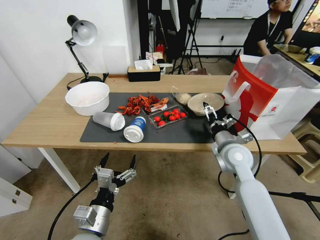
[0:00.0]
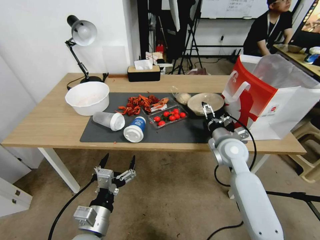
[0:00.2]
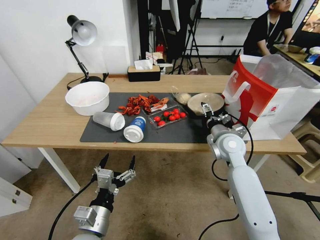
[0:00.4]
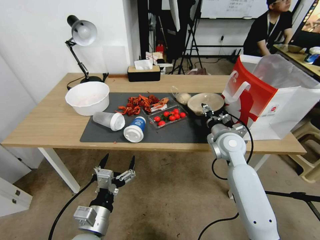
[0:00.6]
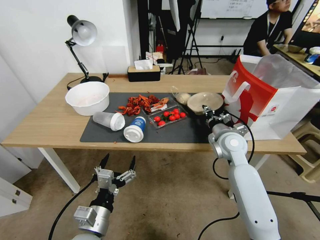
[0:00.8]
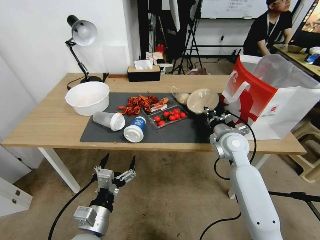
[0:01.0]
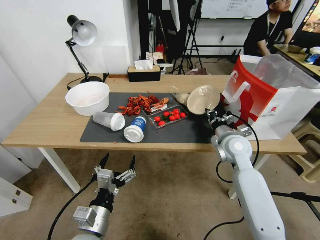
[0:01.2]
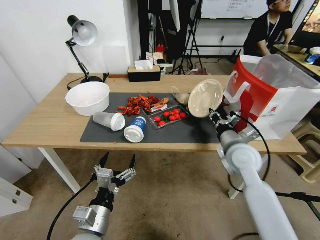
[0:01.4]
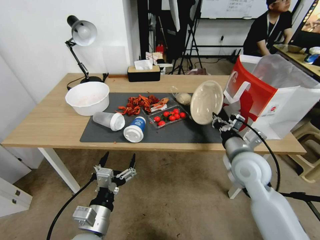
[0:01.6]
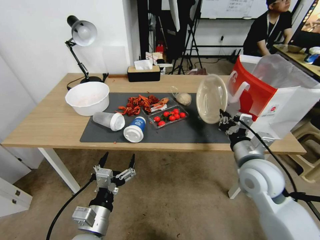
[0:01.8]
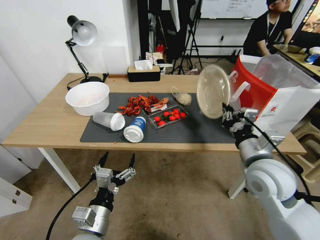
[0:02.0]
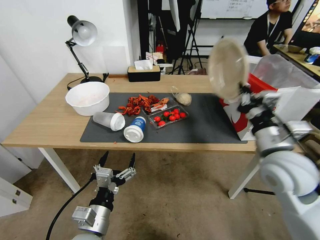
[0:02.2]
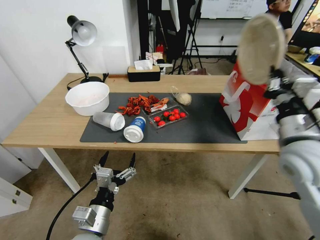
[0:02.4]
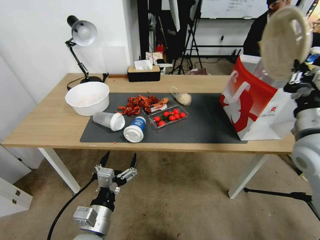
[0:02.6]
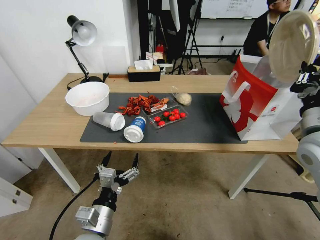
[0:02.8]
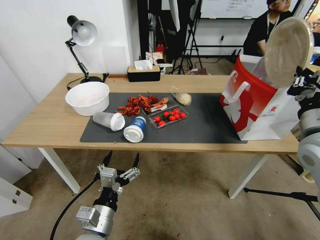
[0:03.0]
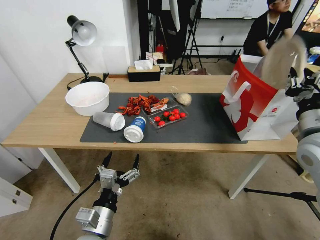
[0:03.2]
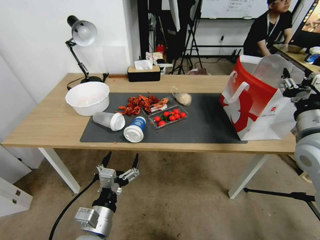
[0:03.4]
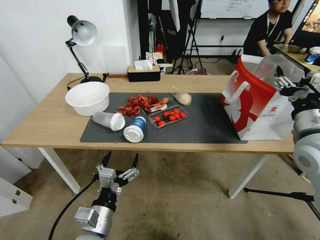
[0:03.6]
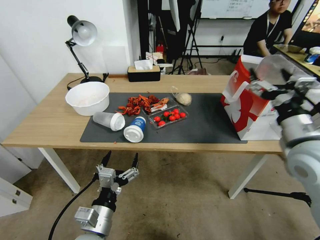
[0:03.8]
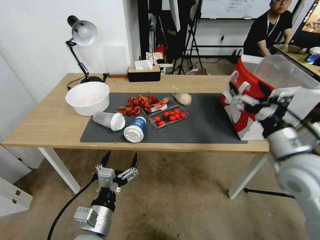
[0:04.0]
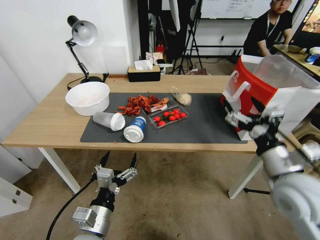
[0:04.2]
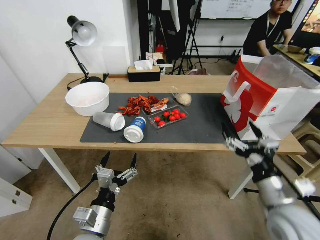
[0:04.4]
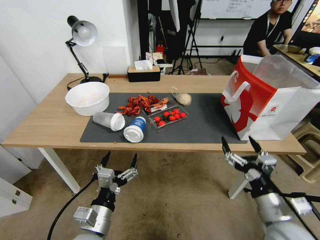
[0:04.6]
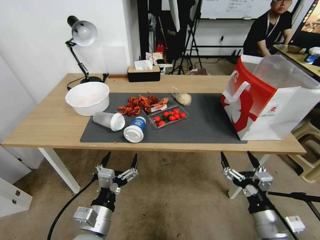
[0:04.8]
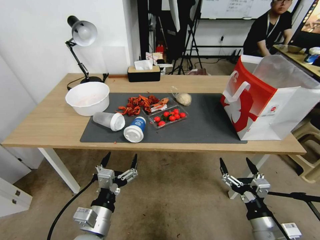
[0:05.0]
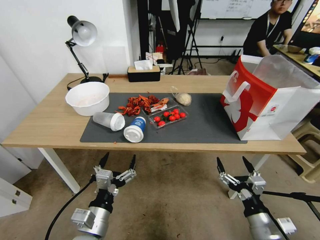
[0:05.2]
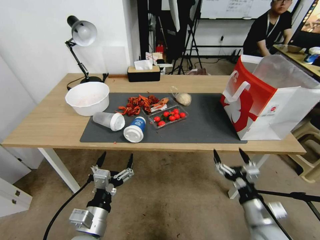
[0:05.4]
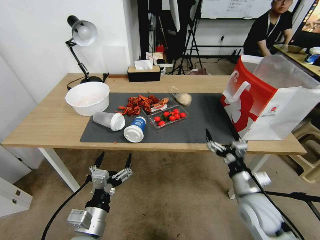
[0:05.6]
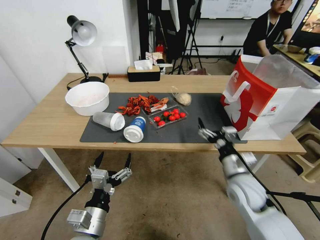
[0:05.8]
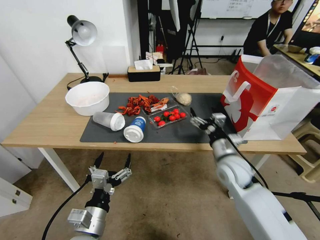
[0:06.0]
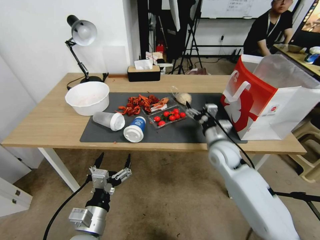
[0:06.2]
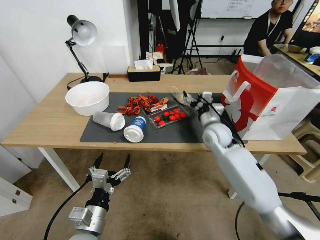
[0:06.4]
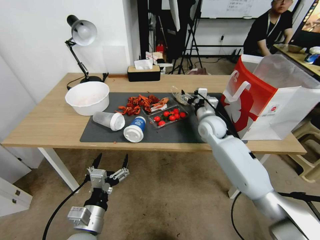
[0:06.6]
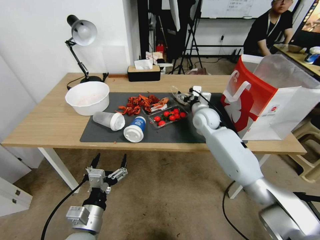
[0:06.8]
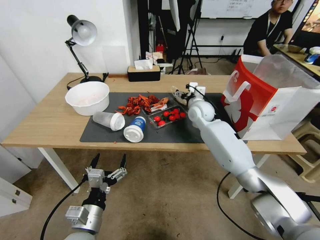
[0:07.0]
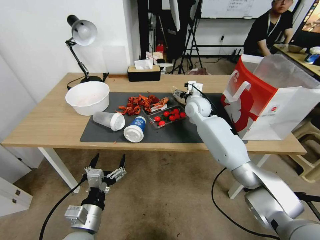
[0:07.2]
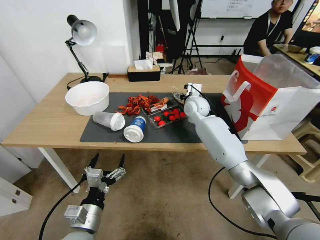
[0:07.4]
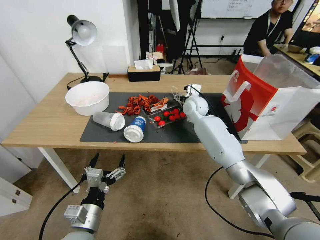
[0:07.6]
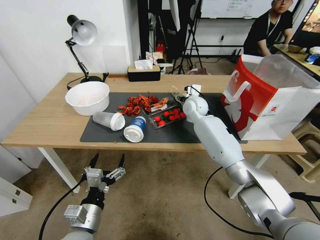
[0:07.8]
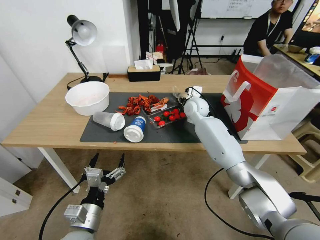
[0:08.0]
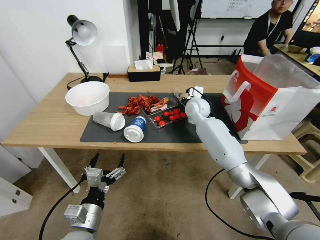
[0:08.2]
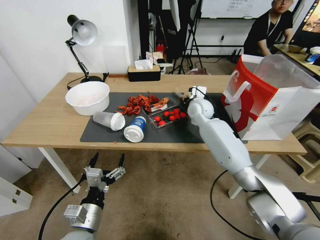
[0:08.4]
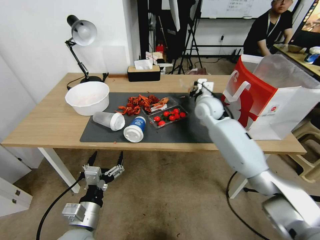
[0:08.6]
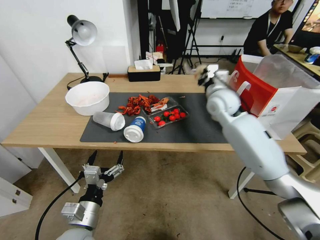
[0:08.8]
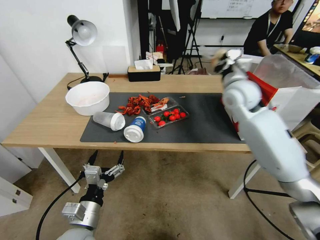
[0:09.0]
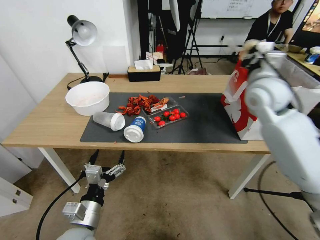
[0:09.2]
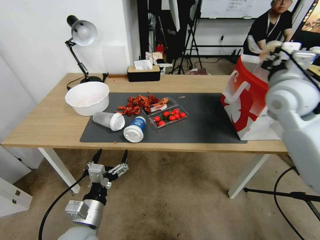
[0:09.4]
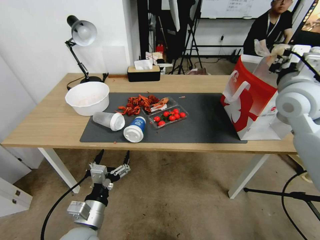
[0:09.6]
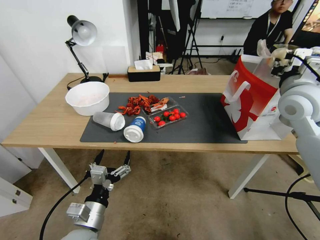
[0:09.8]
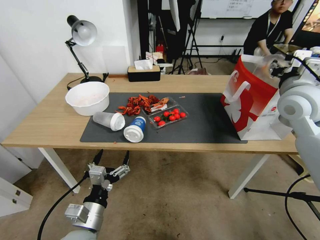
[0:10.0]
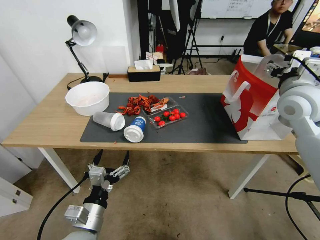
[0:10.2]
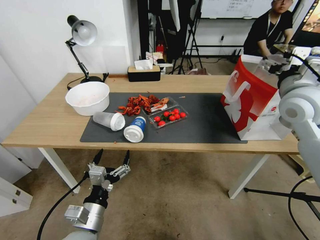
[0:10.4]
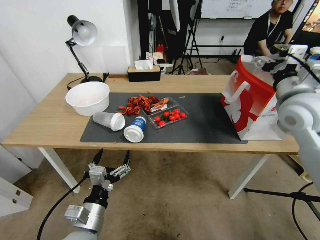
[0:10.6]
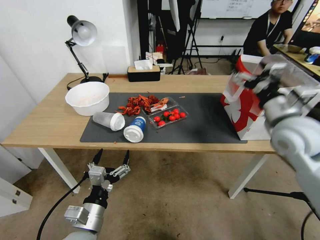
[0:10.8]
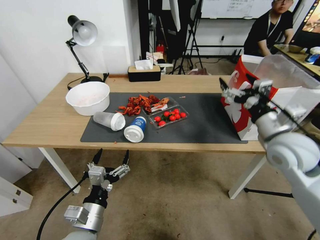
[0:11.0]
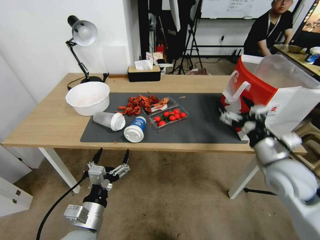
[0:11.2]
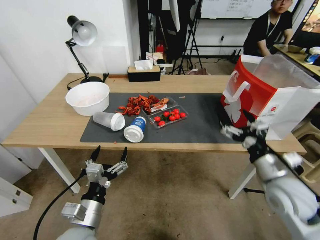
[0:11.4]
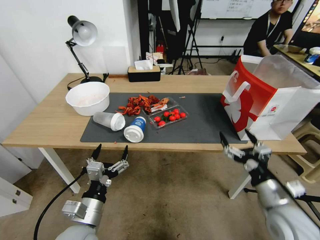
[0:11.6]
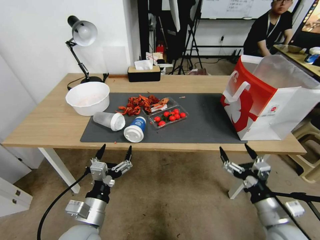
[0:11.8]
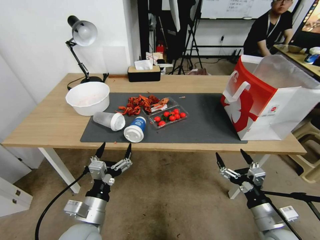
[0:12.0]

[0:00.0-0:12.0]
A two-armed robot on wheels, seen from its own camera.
0:00.0 to 0:01.6: The right gripper is displaced backward by about 5 cm, and closes.
0:01.6 to 0:03.0: The right gripper goes roughly 15 cm upward and to the right.
0:03.0 to 0:04.4: The right gripper heads downward, backward and to the left, covering some 20 cm, and opens.
0:04.4 to 0:06.0: The right gripper moves forward and downward, some 10 cm.
0:06.0 to 0:07.6: The right gripper shifts approximately 30 cm forward.
0:07.6 to 0:09.0: The right gripper moves upward, backward and to the right, roughly 20 cm, and closes.
0:09.0 to 0:10.4: The right gripper goes approximately 15 cm to the right and backward, and opens.
0:10.4 to 0:12.0: The right gripper is displaced downward and backward by about 35 cm.

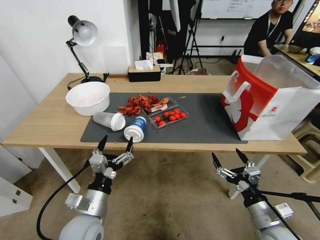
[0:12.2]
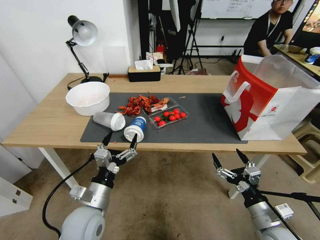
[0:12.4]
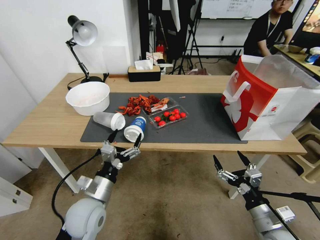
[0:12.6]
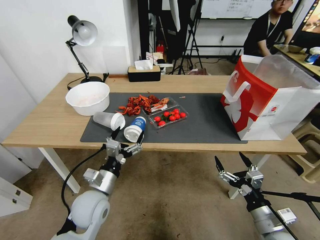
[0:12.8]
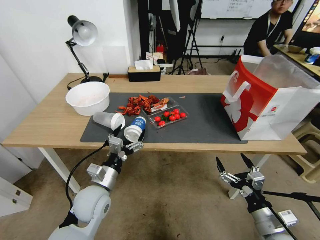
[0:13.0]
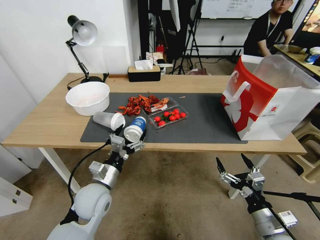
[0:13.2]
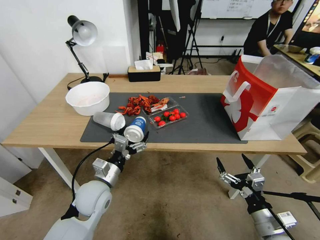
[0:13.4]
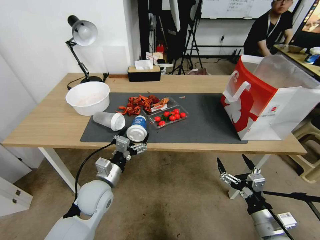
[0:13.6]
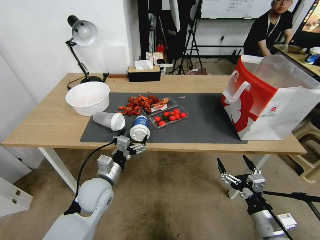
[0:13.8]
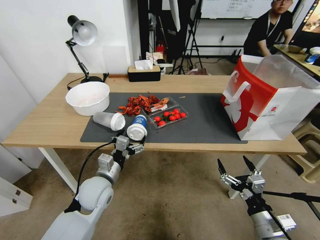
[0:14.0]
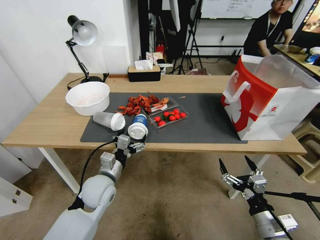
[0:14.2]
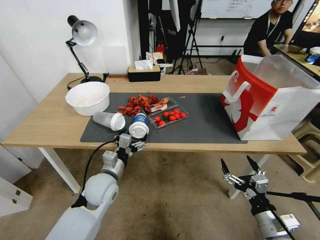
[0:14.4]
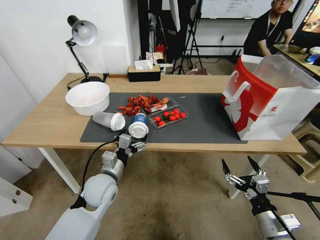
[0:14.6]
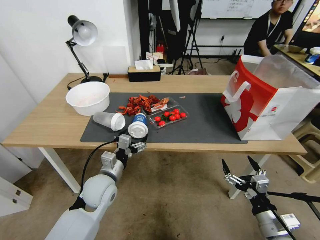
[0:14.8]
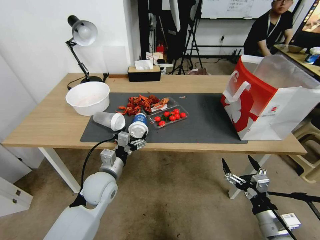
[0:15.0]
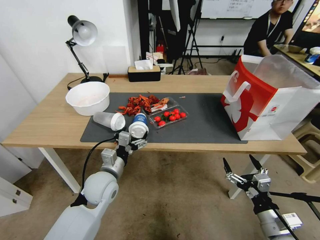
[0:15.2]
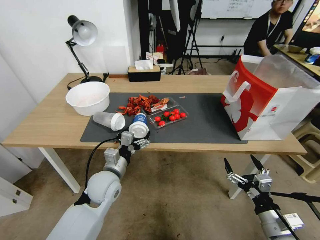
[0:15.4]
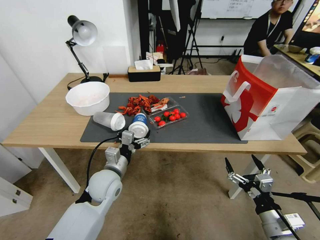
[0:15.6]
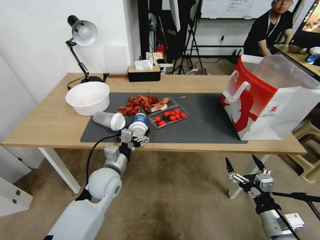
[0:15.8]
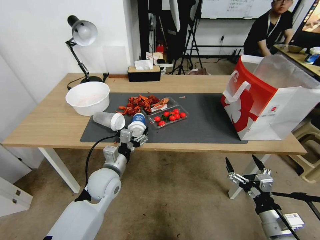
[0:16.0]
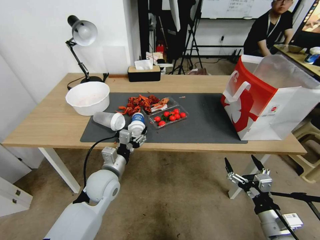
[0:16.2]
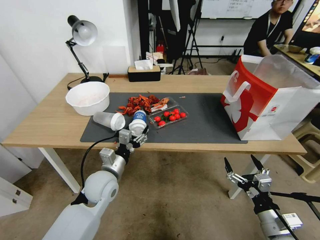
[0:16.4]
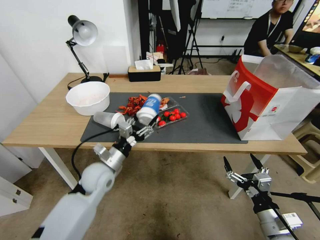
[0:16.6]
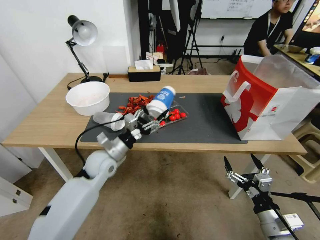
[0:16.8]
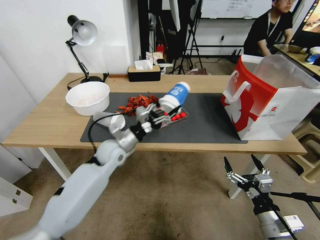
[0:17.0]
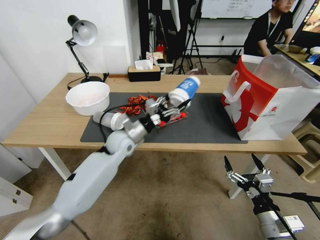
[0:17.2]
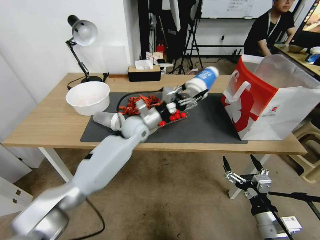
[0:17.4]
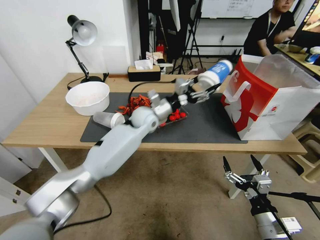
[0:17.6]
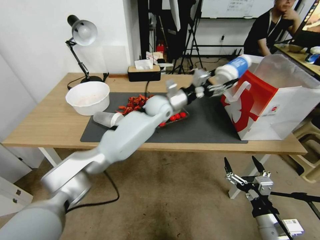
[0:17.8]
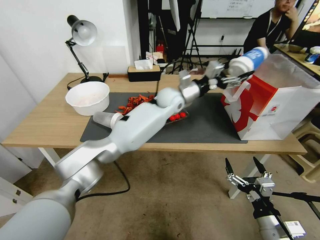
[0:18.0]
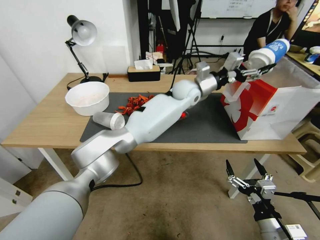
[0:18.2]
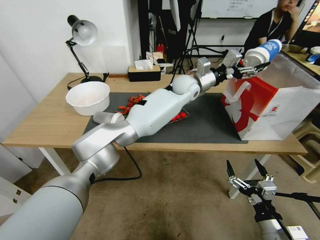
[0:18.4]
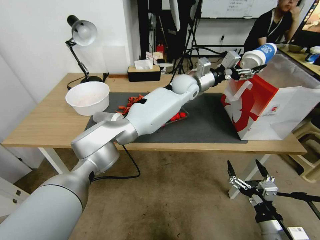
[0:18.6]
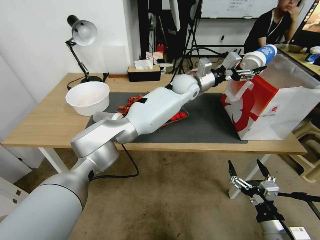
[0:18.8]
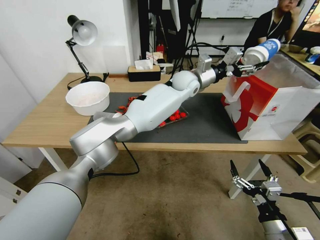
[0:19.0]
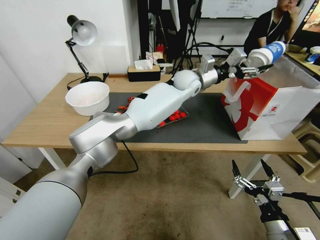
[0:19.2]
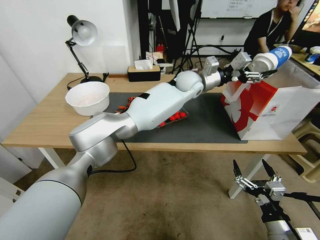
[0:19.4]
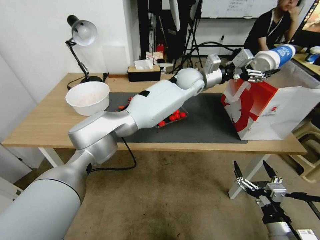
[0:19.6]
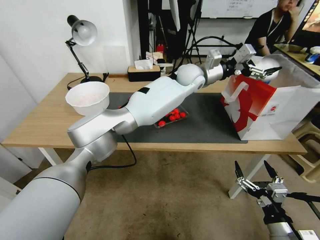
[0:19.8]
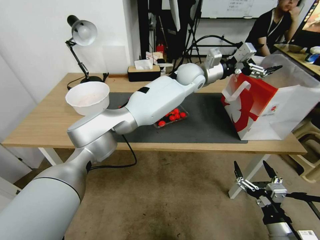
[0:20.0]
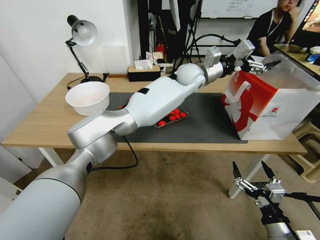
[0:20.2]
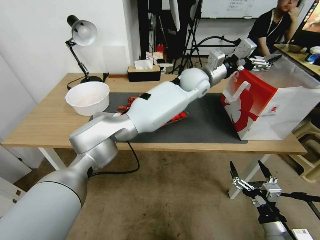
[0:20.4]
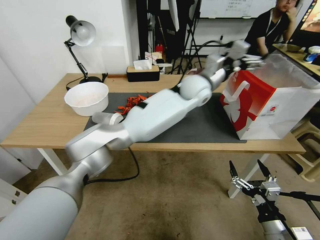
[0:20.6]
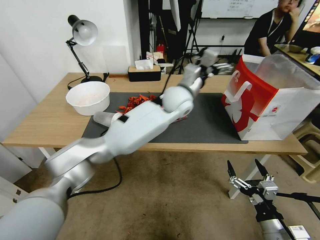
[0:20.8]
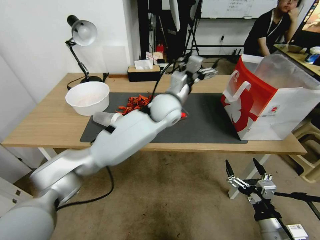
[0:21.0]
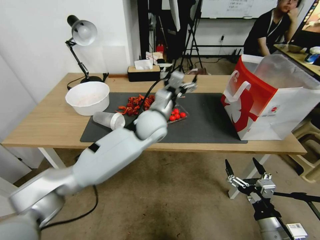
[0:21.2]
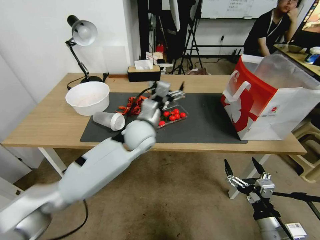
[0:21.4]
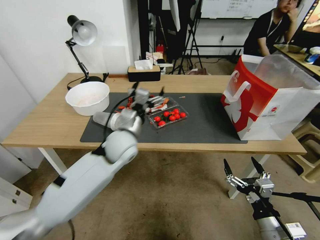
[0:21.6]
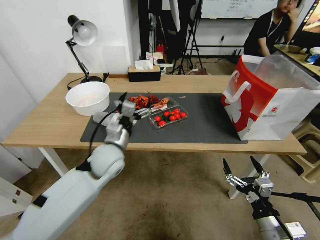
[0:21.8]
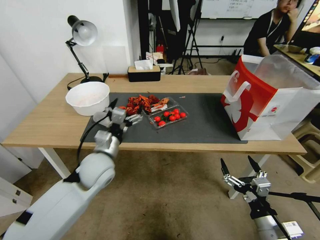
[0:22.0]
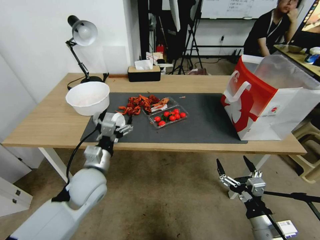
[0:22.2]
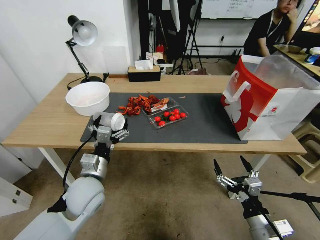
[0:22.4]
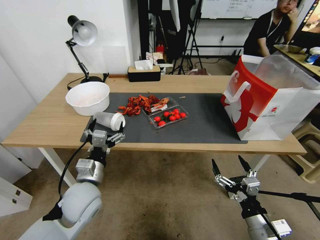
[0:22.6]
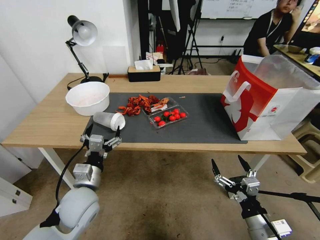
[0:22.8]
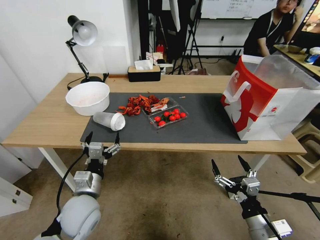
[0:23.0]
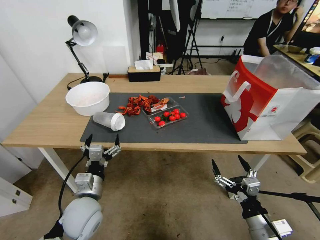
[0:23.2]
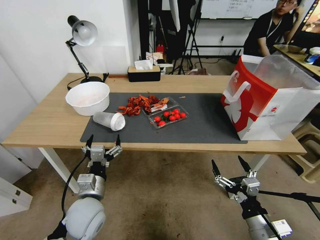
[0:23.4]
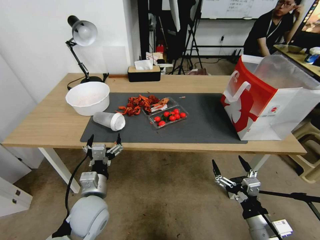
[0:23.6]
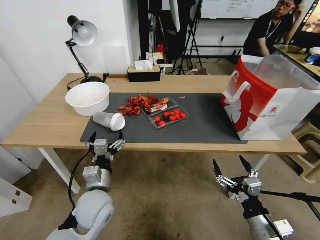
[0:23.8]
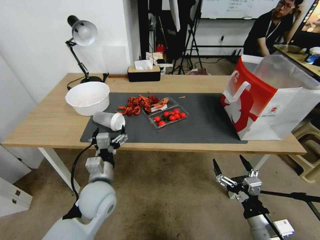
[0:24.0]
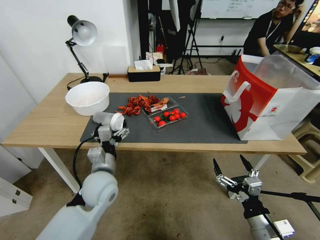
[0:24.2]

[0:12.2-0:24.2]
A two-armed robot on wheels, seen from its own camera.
0:12.2 to 0:13.8: The left gripper heads forward, covering approximately 10 cm.
0:13.8 to 0:15.2: The grippers stay close to where they were, moving slightly.
0:15.2 to 0:16.6: The left gripper closes up.
0:16.6 to 0:18.2: The left gripper travels forward, to the right and upward by roughly 40 cm.
0:18.2 to 0:19.8: The left gripper moves upward, some 5 cm, and opens its fingers.
0:19.8 to 0:21.2: The left gripper travels backward, to the left and downward by approximately 20 cm.
0:21.2 to 0:22.6: The left gripper goes some 30 cm to the left, backward and downward.
0:22.6 to 0:24.2: There are only small adjustments of the grippers.
